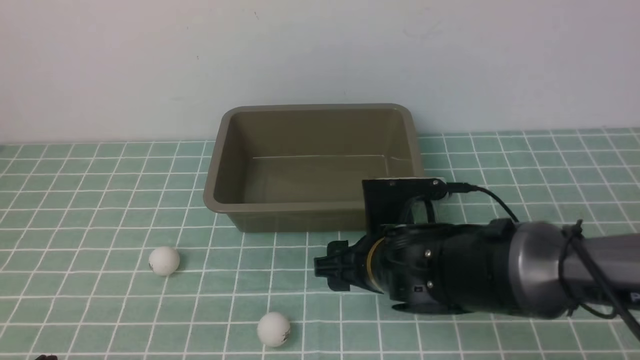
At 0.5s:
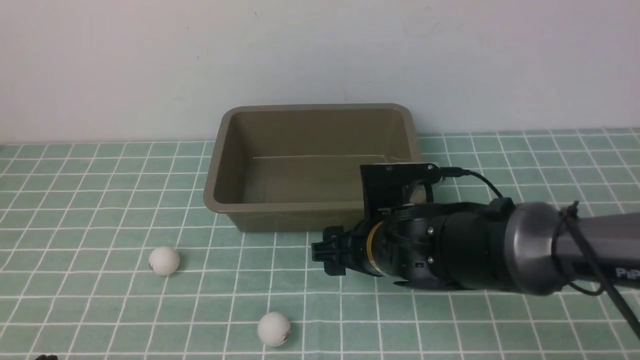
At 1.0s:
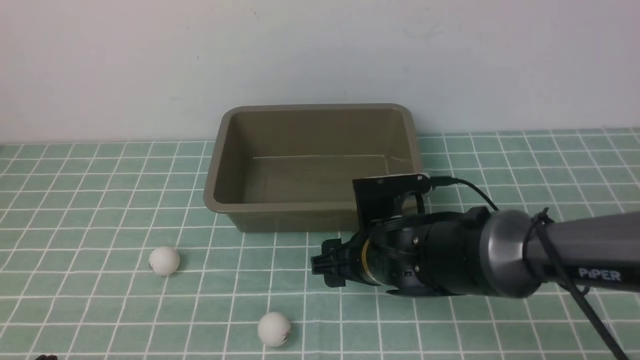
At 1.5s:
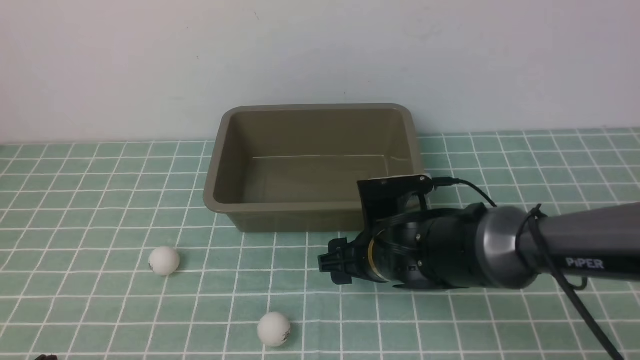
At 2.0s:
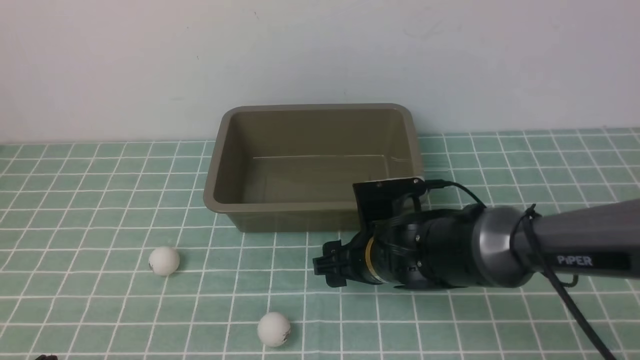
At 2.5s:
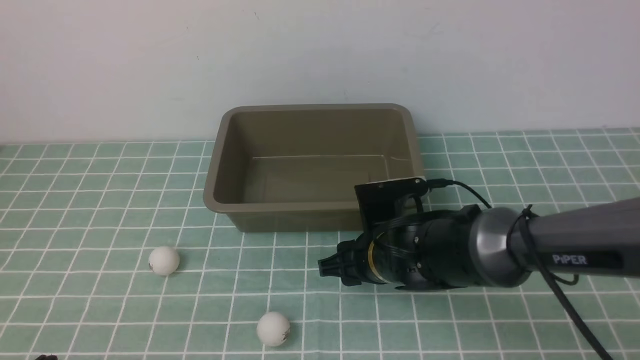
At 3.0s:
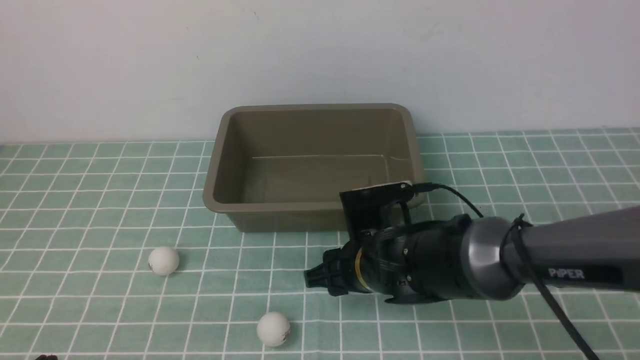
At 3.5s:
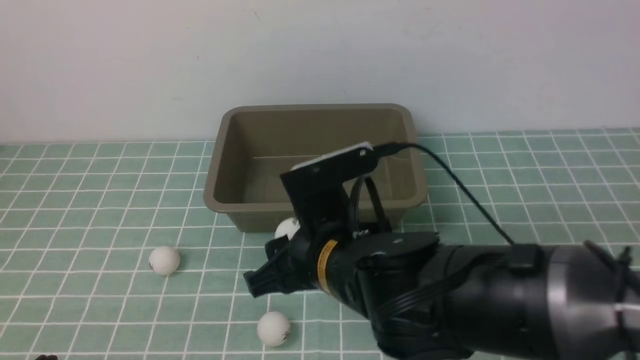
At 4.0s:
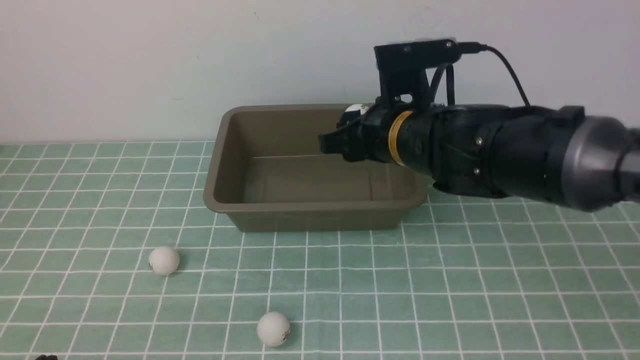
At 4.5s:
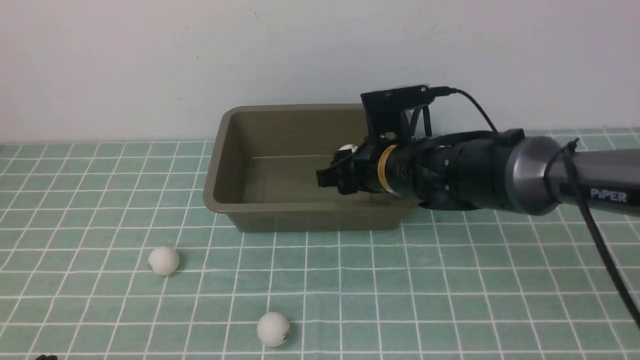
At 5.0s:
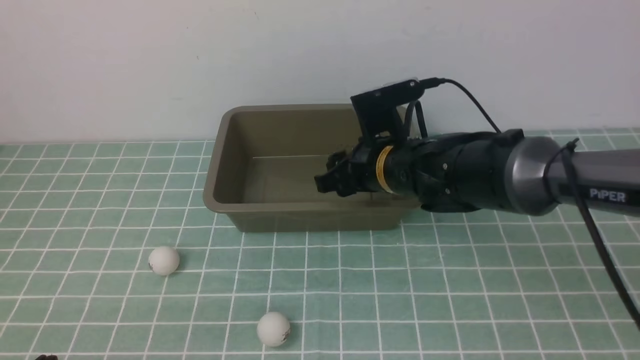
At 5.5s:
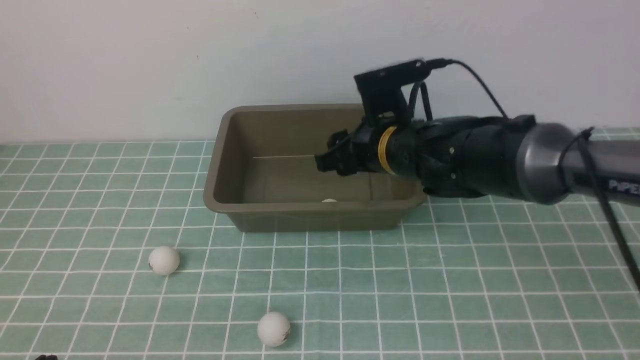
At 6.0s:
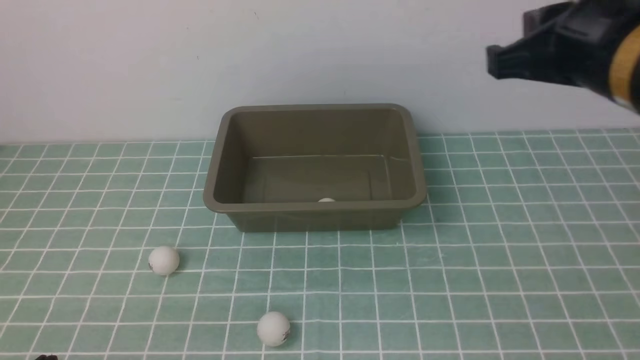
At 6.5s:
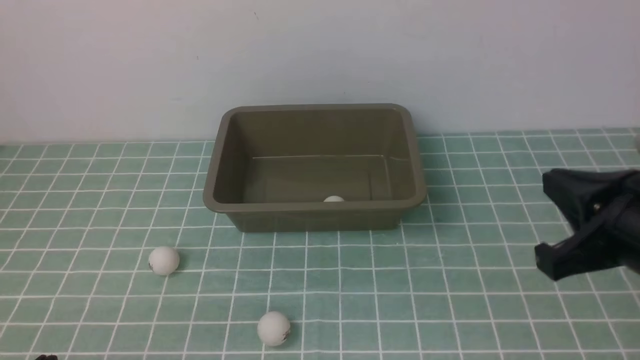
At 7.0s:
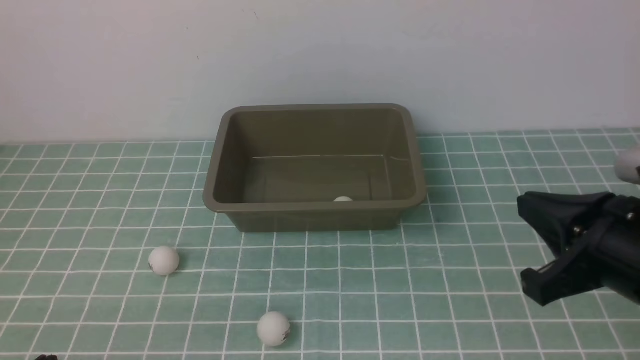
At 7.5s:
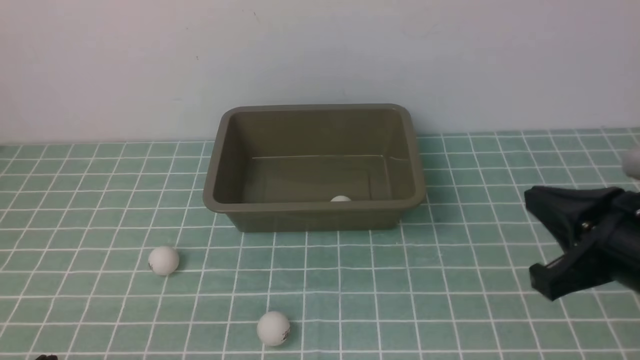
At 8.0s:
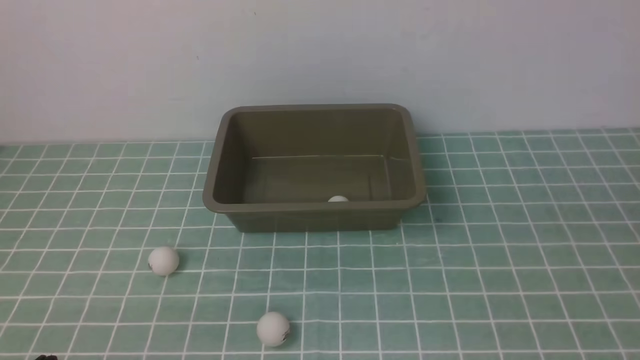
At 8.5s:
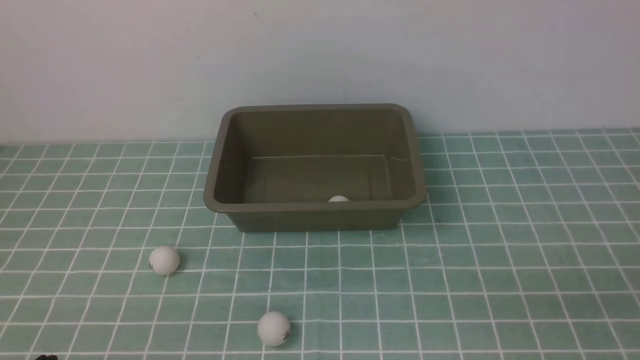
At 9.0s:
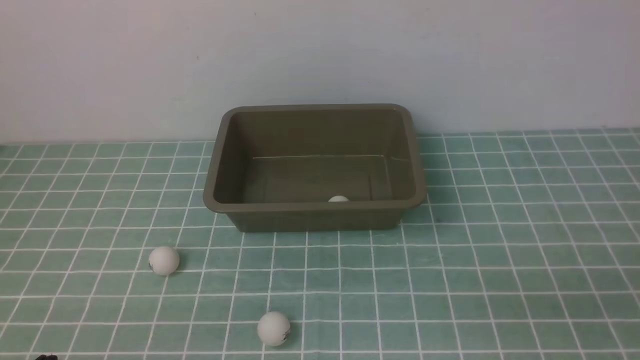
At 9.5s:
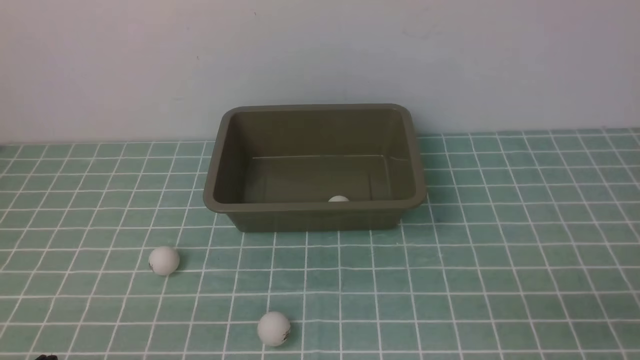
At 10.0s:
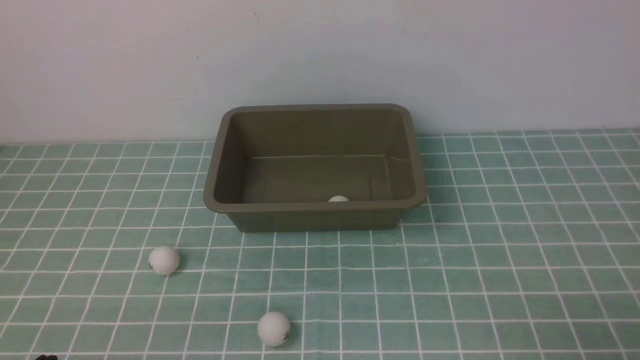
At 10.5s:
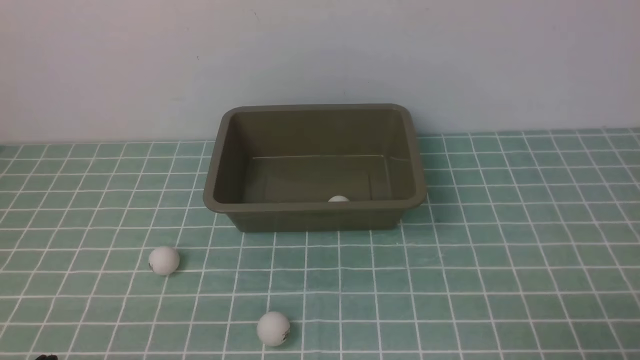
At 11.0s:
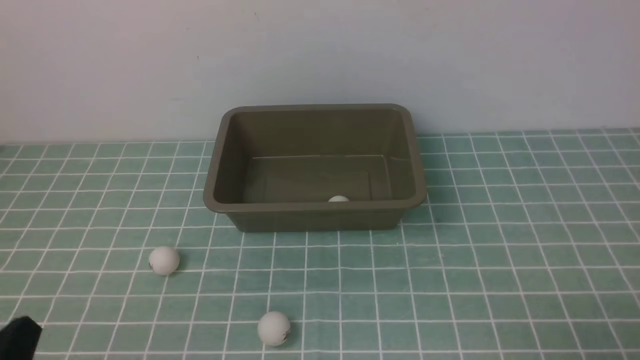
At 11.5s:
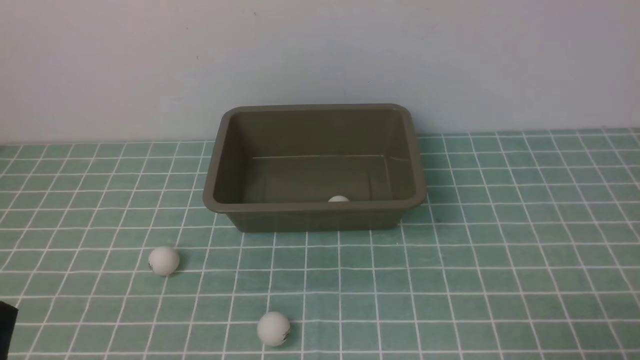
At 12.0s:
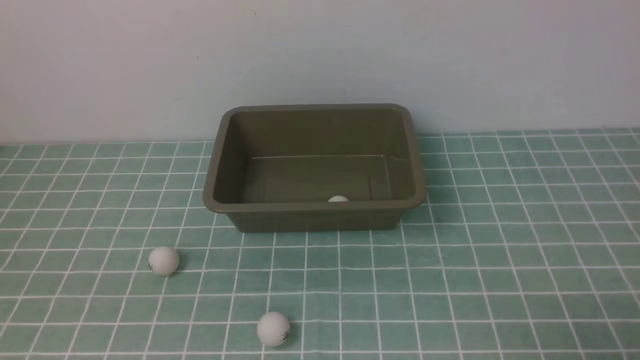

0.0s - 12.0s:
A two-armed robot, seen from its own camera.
Step, 0.0s - 3.0s: use the right arm to clamp the table tennis ball closest to it.
Step, 3.5s - 5.5s: use the right arm to put the table tennis ball into the box.
0.0s - 2.0s: The right gripper ends up roughly 5 cm from where it was.
2.0s - 4.0s: The right gripper heads upward and forward, covering some 10 cm.
4.0s - 6.0s: The right gripper shifts about 25 cm upward, backward and to the right, and closes its fingers.
6.0s - 8.0s: The right gripper heads backward, downward and to the right, covering roughly 25 cm.

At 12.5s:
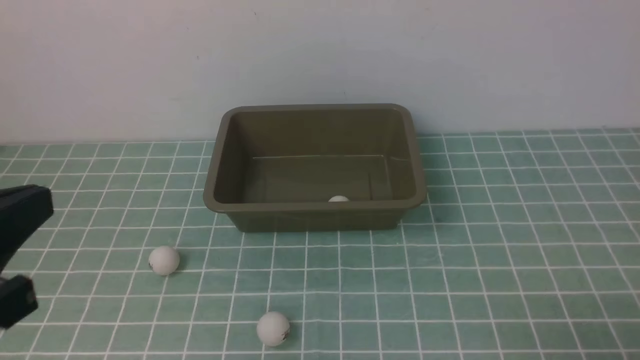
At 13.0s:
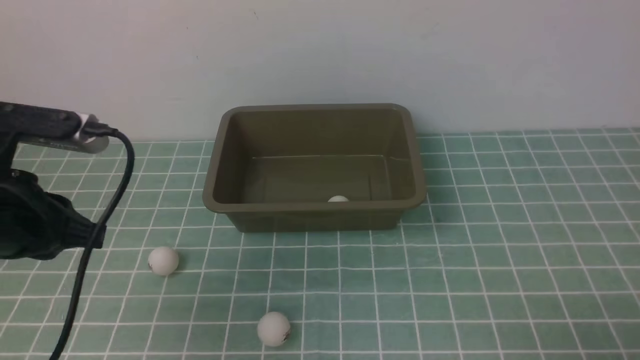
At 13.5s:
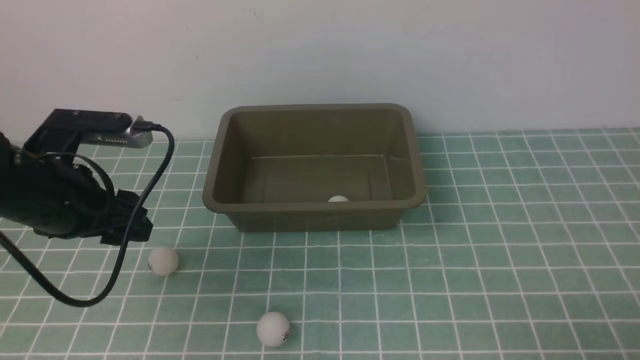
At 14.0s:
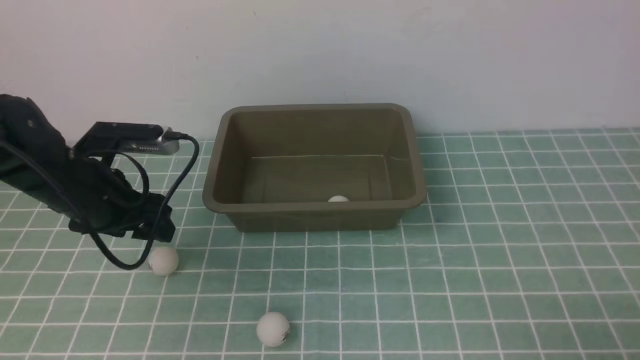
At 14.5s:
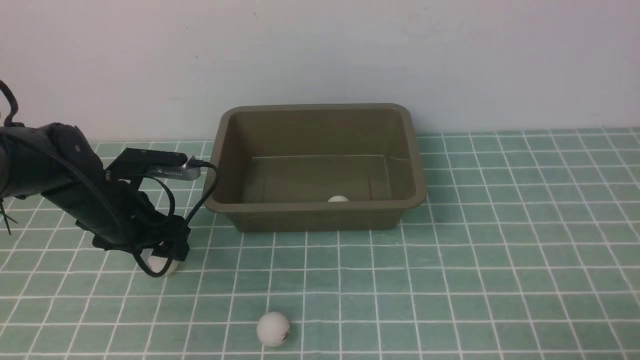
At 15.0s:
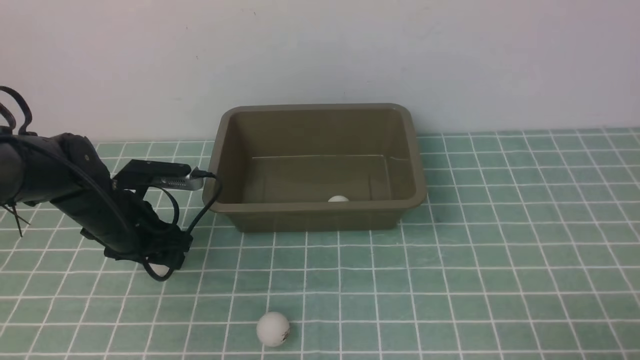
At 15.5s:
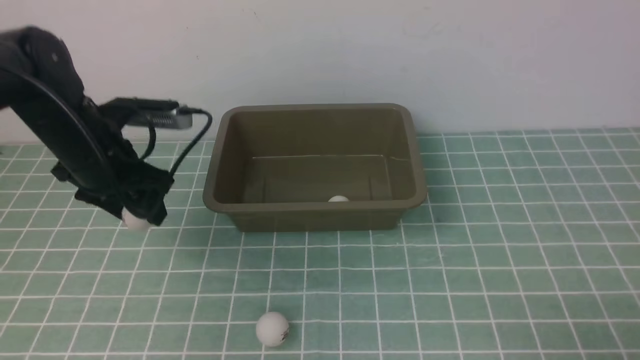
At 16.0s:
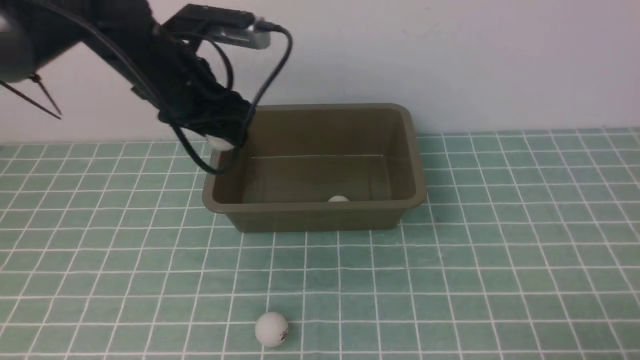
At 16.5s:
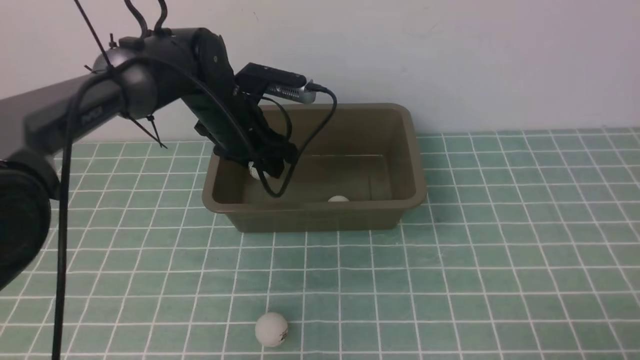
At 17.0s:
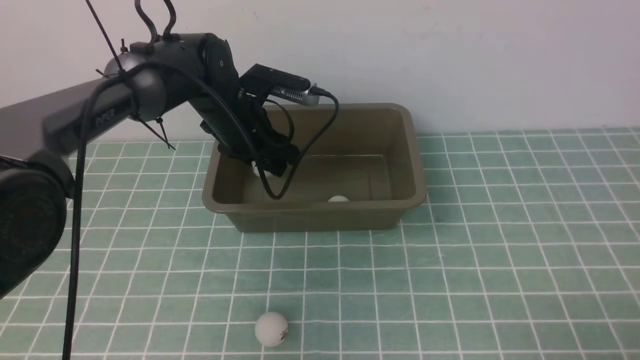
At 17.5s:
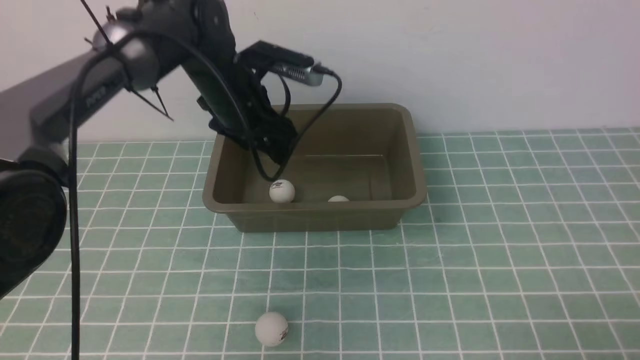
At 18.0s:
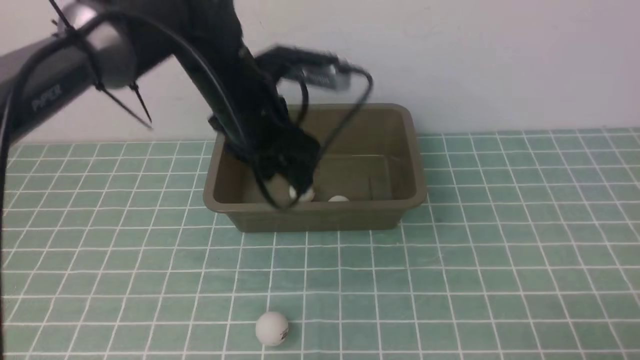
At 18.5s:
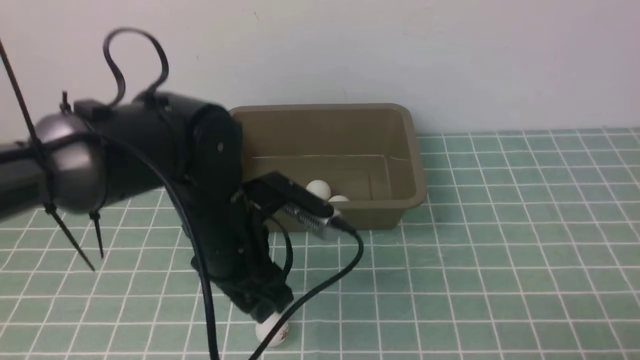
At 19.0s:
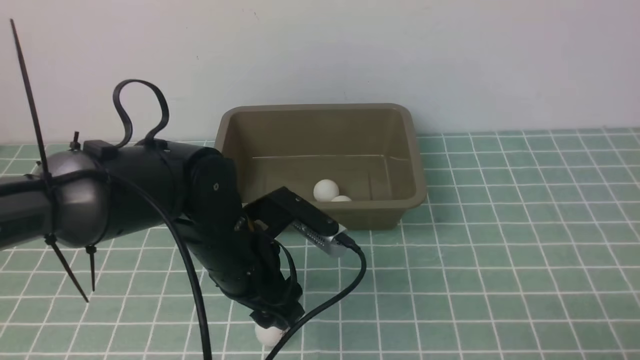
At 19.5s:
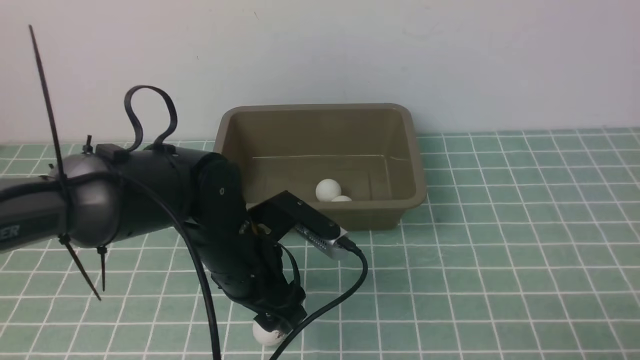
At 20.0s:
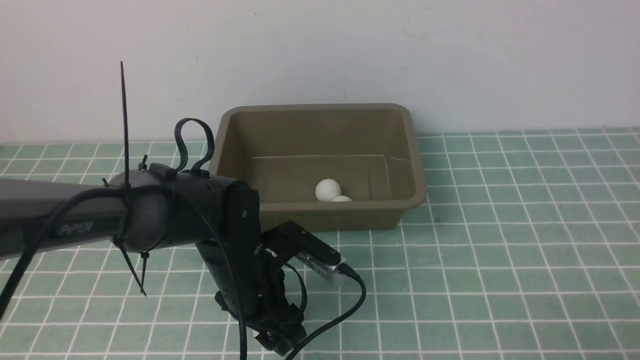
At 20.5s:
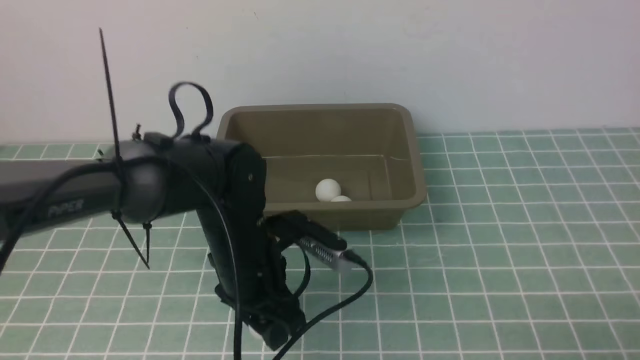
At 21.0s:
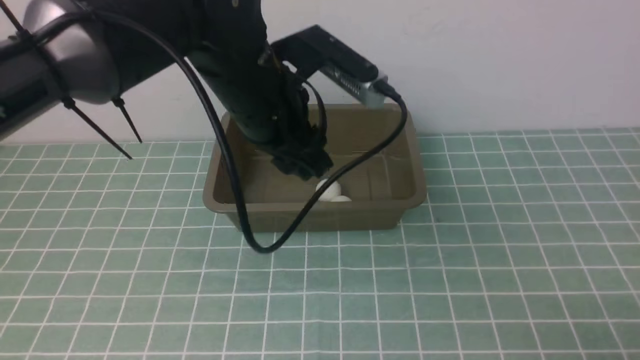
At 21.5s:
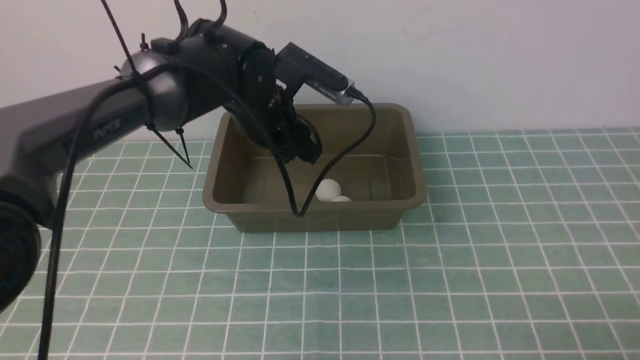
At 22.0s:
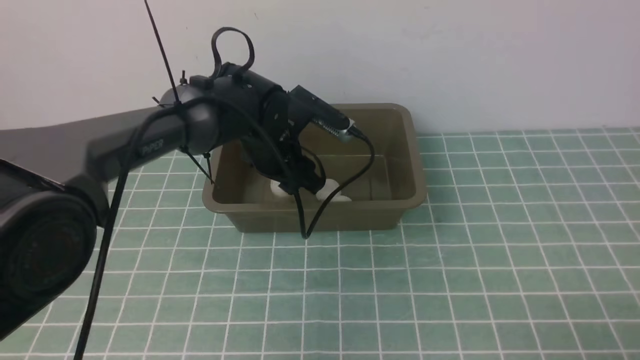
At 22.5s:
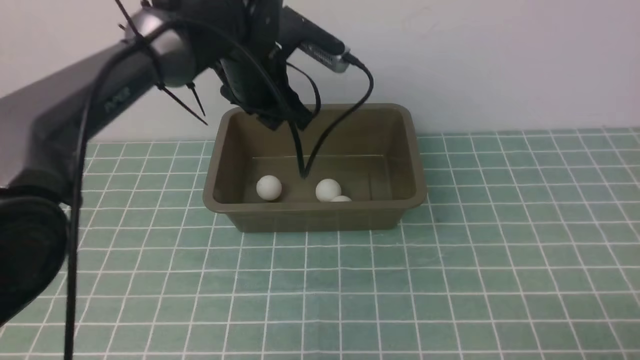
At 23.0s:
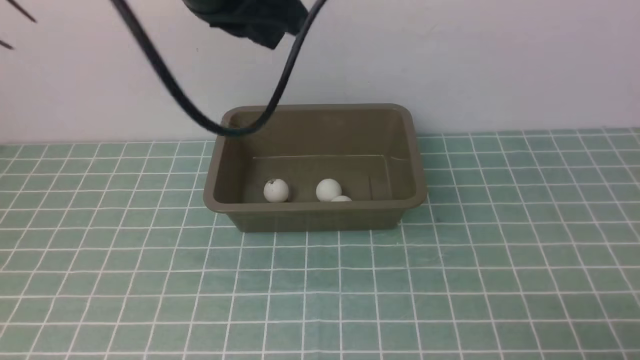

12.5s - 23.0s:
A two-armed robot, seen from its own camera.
Step, 12.5s - 15.0s: use the left arm to clamp the table tennis ball closest to it.
Step, 15.5s - 17.0s: use the left arm to put the table tennis ball into the box.
Step, 17.5s - 20.5s: use the left arm to clamp the table tennis ball closest to it.
Step, 21.0s - 22.0s: use the left arm to put the table tennis ball into the box.
12.5s - 14.5s: The left gripper heads forward and downward, covering about 30 cm, and opens.
14.5s - 16.5s: The left gripper heads to the right, forward and upward, covering about 15 cm, and closes its fingers.
16.5s - 19.0s: The left gripper is displaced backward by about 15 cm.
19.0s - 21.0s: The left gripper travels upward and forward by some 15 cm.
21.0s - 23.0s: The left gripper travels upward by approximately 15 cm, and closes its fingers.
